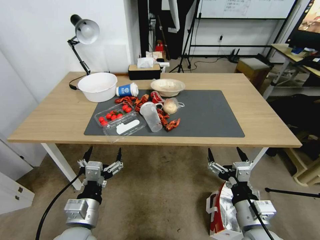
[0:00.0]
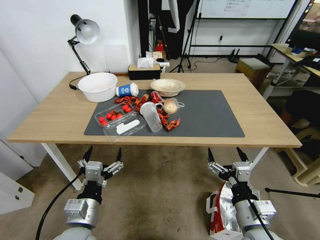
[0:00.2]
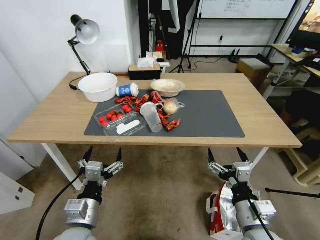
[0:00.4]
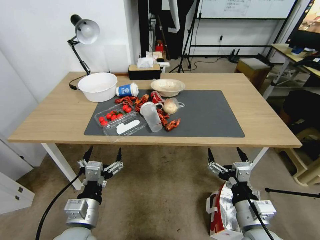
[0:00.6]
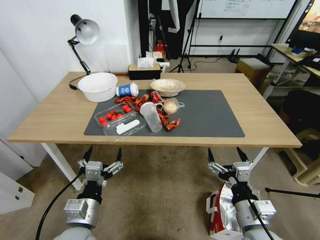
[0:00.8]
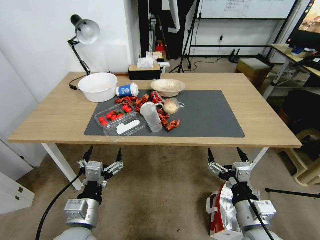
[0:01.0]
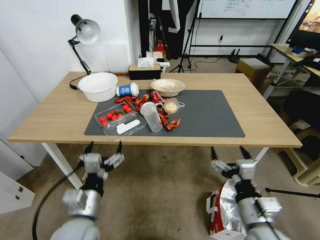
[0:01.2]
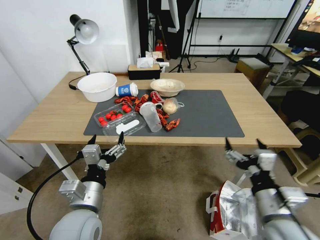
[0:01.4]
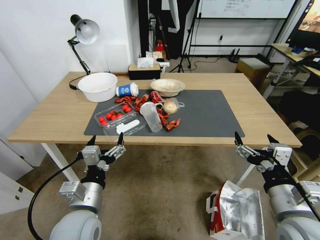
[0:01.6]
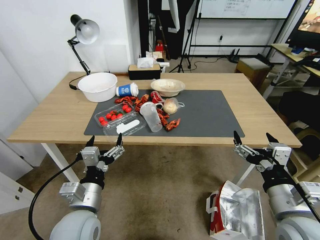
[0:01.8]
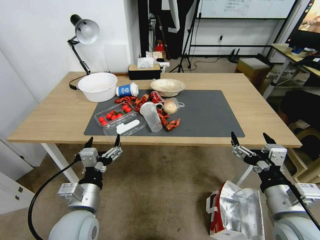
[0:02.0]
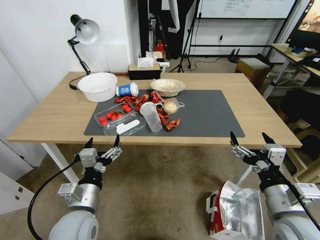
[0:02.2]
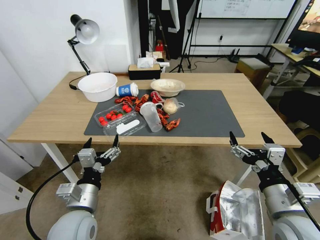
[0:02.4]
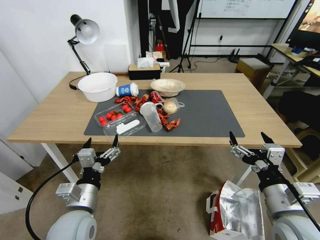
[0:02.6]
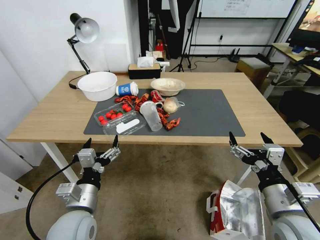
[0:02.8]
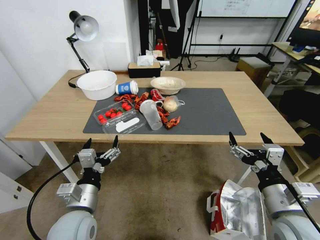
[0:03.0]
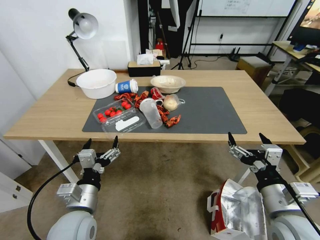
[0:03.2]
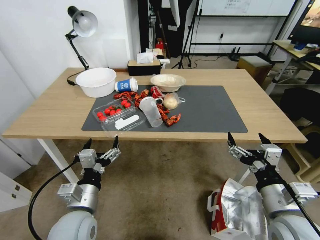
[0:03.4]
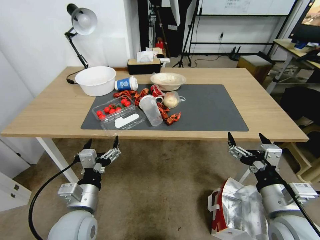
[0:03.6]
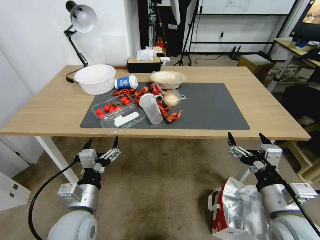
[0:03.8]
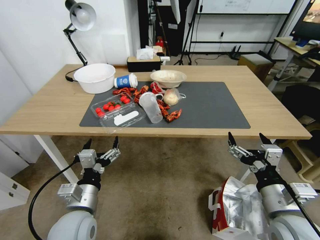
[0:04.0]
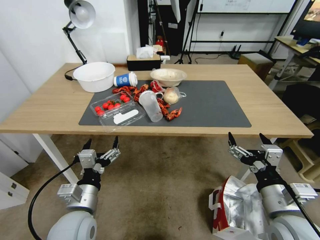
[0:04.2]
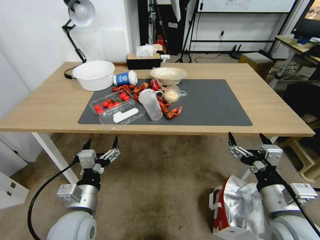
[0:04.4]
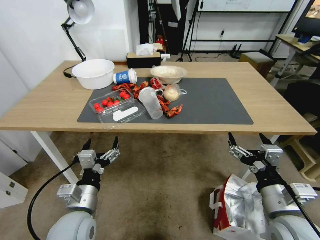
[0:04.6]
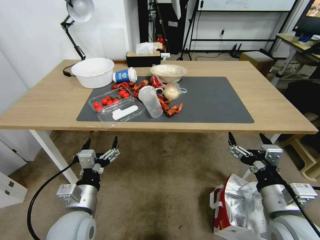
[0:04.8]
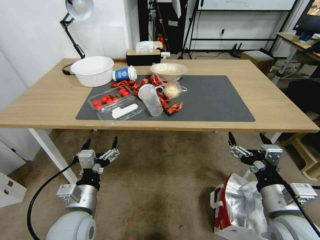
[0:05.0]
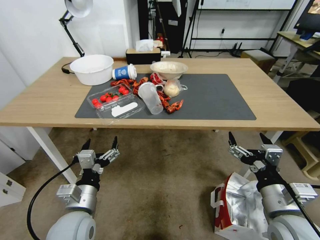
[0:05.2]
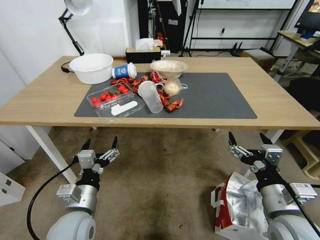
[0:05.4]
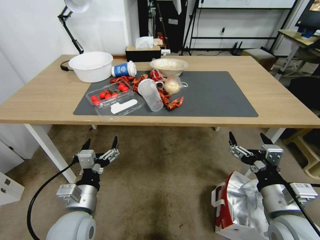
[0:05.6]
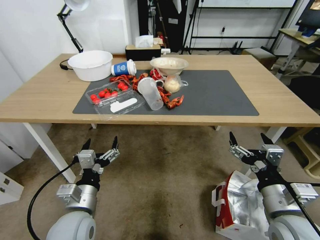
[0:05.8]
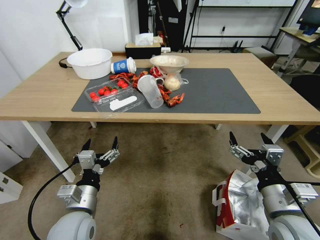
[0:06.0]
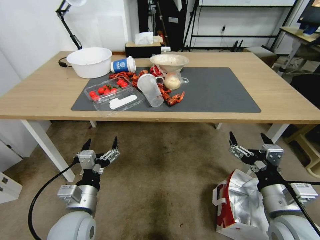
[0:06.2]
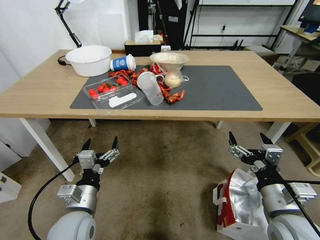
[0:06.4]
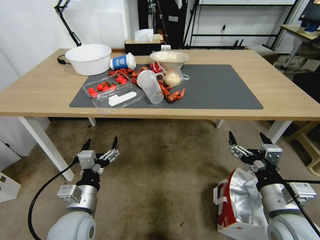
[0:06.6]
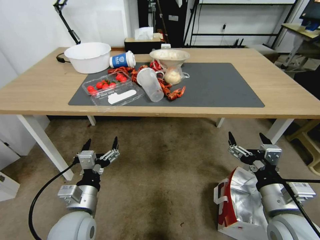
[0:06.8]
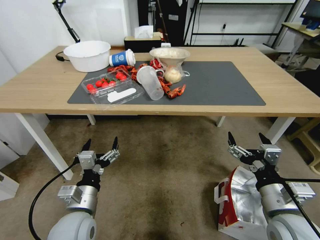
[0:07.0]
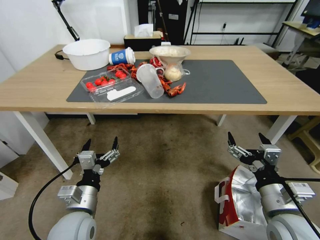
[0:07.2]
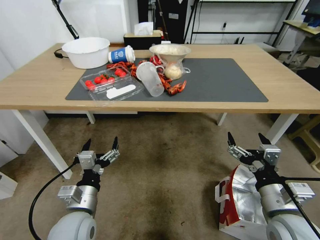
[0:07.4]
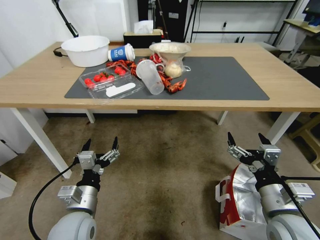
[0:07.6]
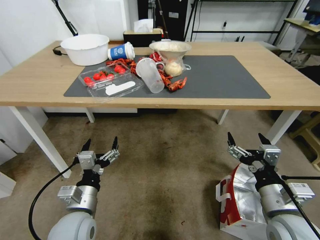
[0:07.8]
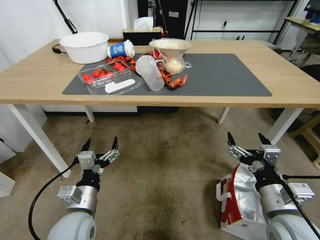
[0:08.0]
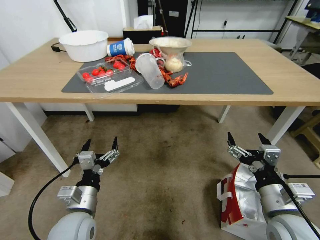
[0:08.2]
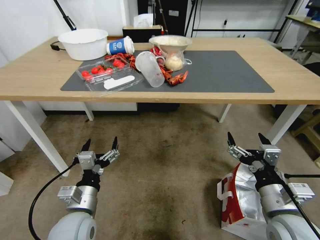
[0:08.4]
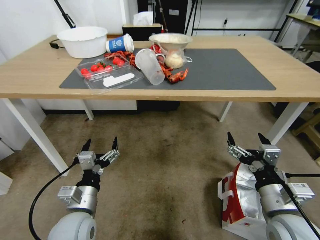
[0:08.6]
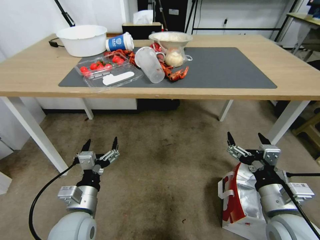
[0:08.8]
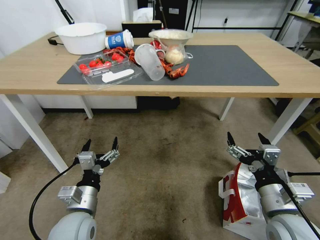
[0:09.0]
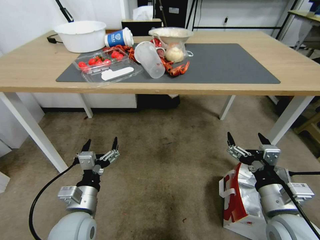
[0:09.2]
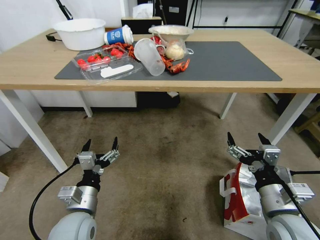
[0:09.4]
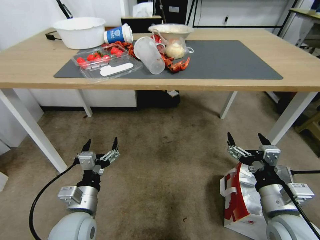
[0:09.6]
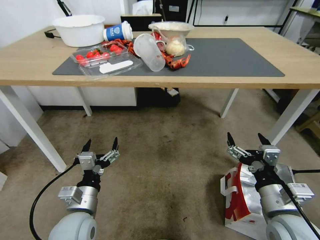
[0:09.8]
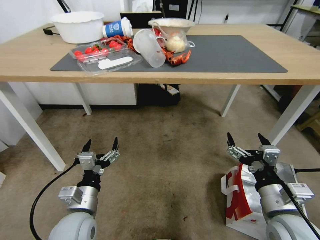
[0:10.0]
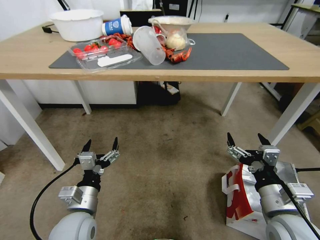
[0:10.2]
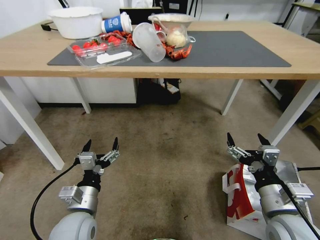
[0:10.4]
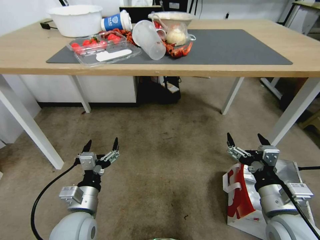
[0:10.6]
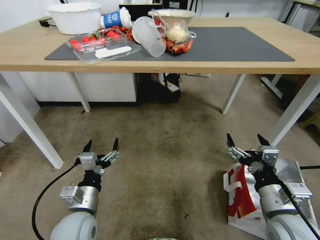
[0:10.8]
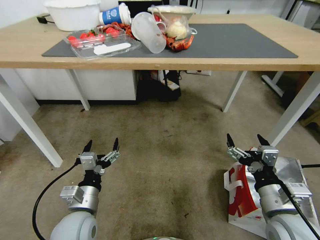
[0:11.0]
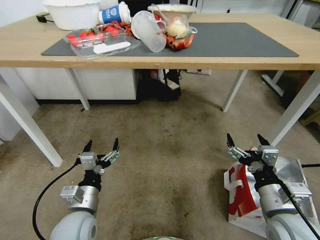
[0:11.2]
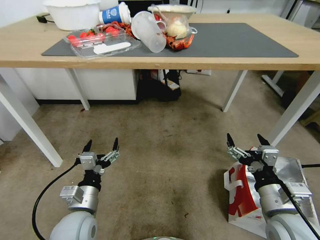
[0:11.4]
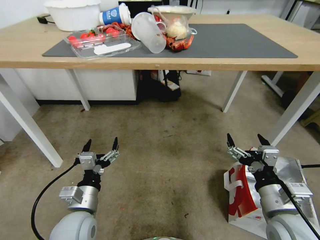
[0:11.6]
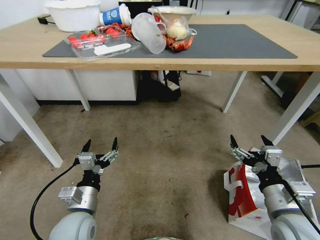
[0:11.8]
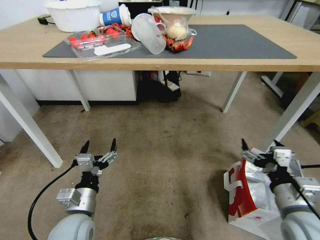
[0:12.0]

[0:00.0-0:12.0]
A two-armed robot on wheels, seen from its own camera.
Task of the whole recording: Pick up the food delivery bag from the floor and place it on the table.
0:01.6 to 0:03.0: The grippers stay close to where they were, moving slightly.

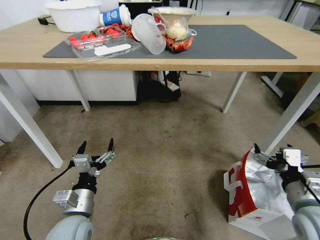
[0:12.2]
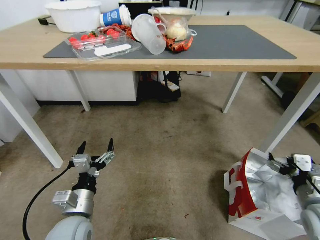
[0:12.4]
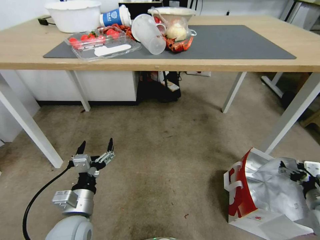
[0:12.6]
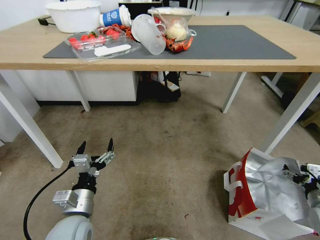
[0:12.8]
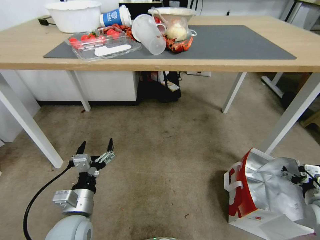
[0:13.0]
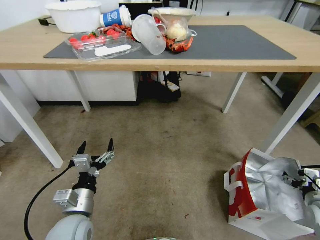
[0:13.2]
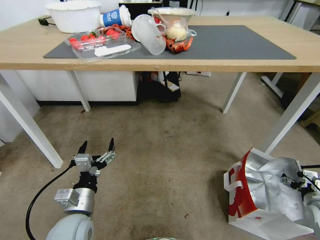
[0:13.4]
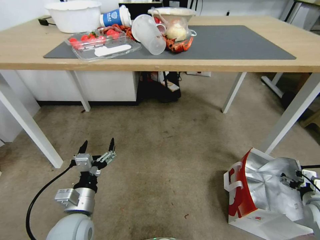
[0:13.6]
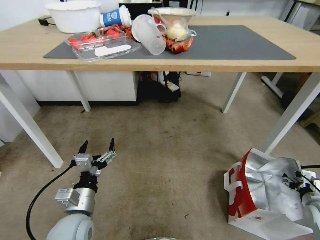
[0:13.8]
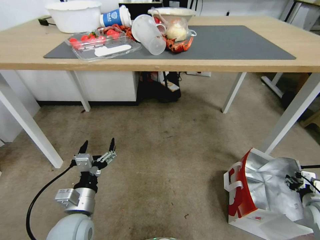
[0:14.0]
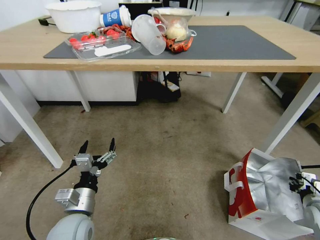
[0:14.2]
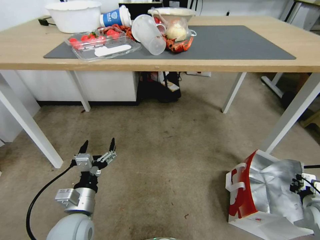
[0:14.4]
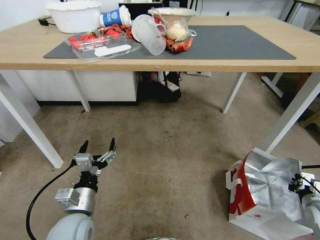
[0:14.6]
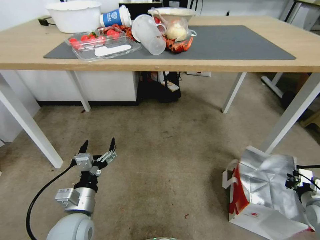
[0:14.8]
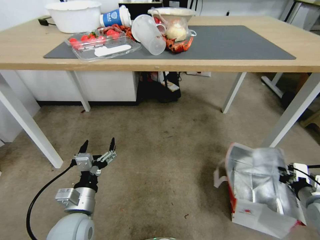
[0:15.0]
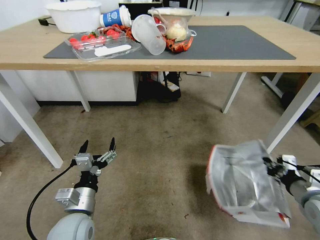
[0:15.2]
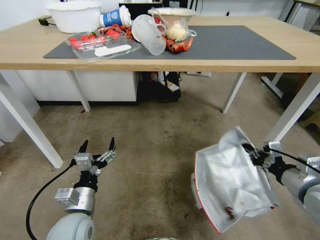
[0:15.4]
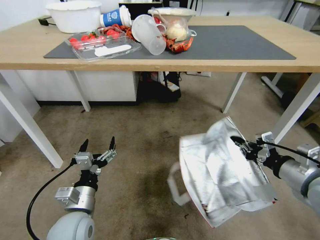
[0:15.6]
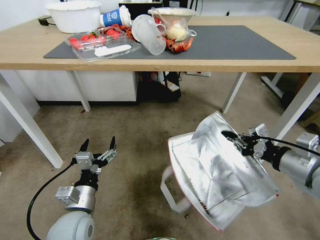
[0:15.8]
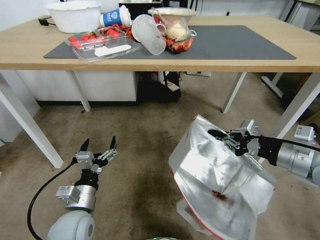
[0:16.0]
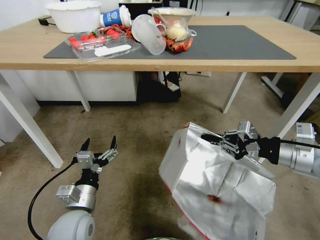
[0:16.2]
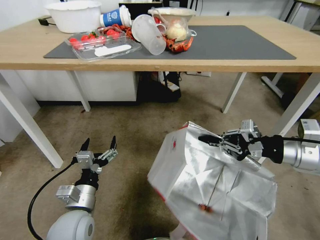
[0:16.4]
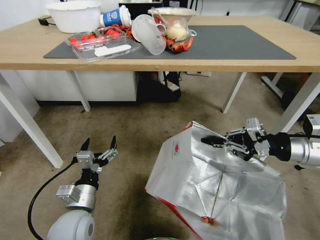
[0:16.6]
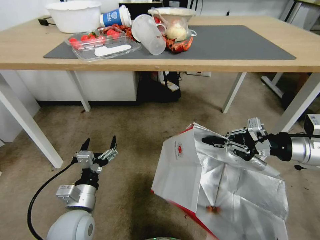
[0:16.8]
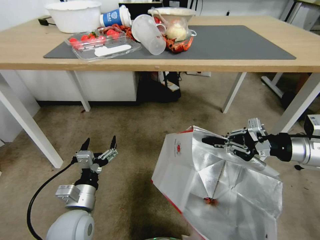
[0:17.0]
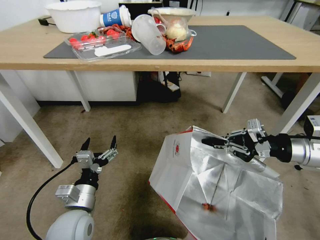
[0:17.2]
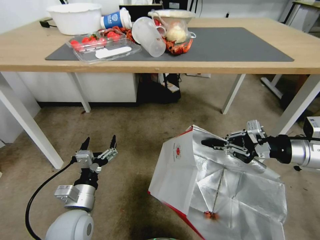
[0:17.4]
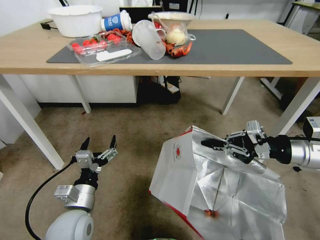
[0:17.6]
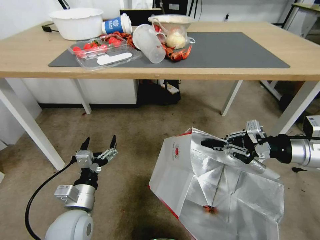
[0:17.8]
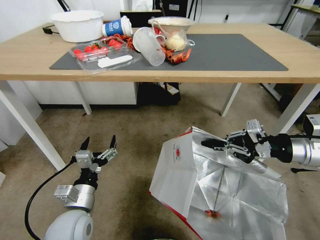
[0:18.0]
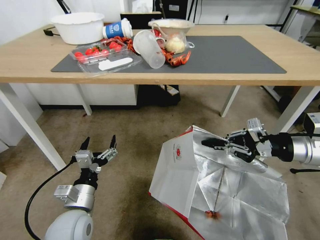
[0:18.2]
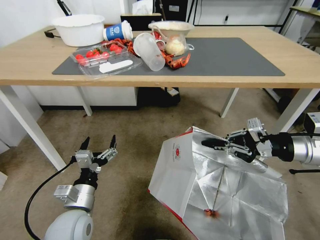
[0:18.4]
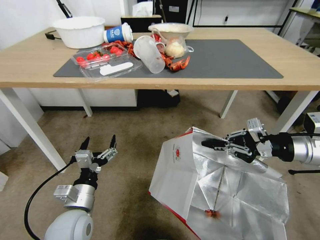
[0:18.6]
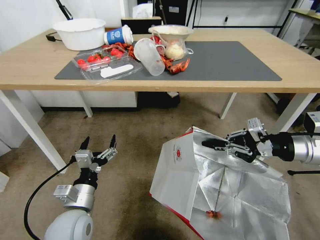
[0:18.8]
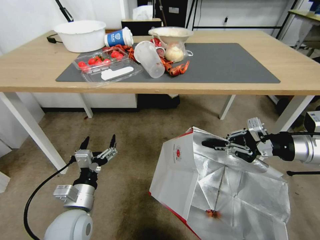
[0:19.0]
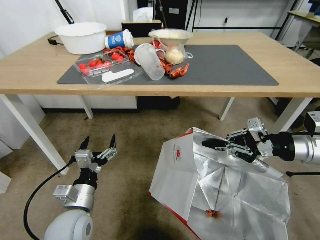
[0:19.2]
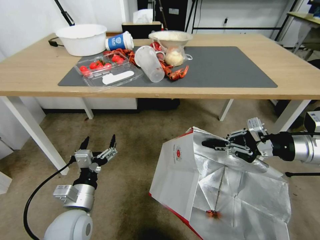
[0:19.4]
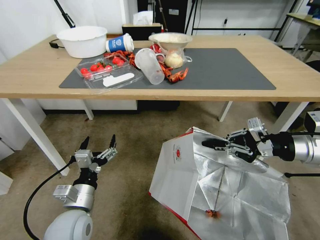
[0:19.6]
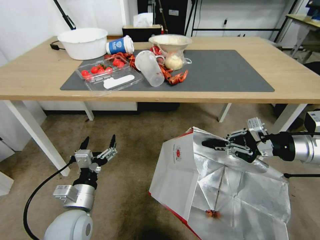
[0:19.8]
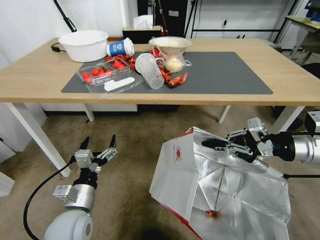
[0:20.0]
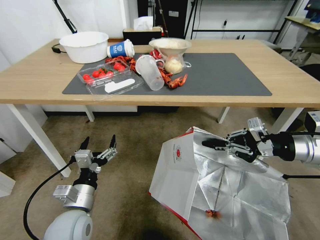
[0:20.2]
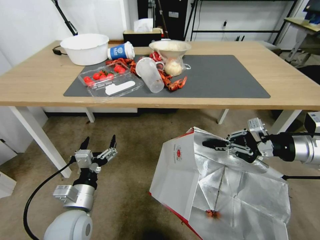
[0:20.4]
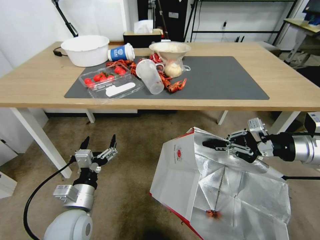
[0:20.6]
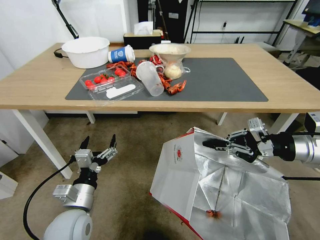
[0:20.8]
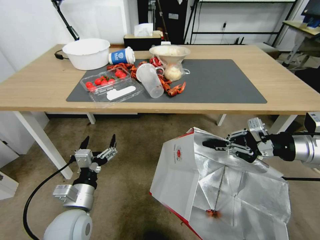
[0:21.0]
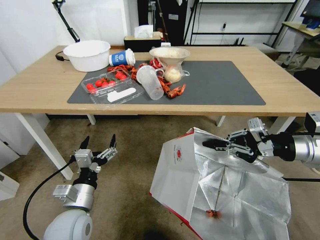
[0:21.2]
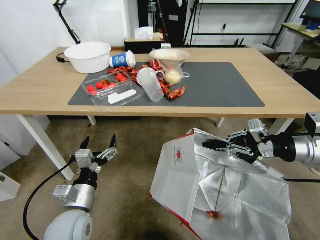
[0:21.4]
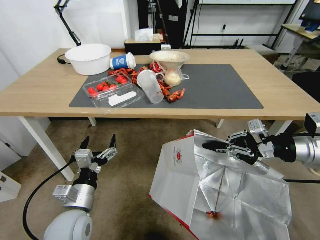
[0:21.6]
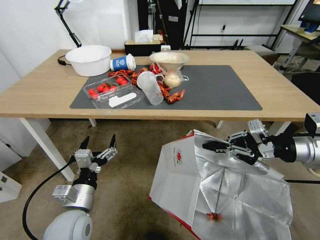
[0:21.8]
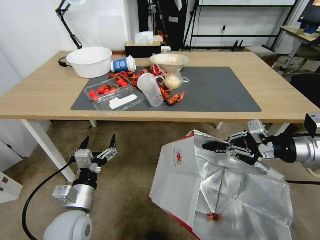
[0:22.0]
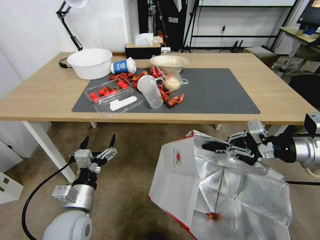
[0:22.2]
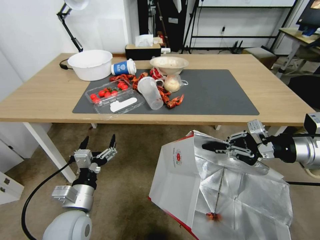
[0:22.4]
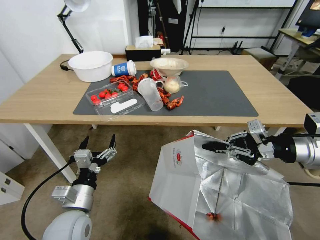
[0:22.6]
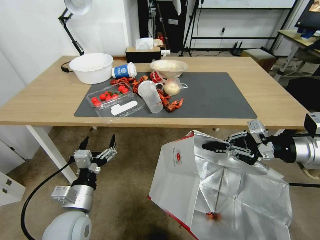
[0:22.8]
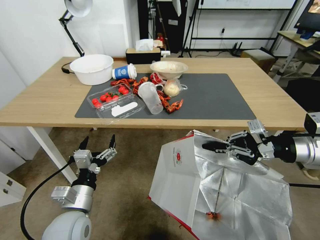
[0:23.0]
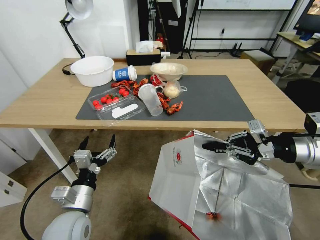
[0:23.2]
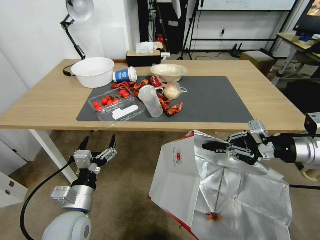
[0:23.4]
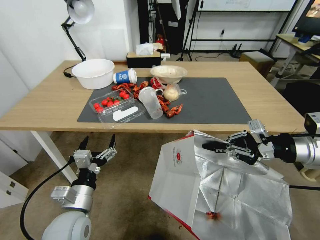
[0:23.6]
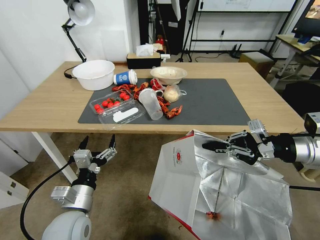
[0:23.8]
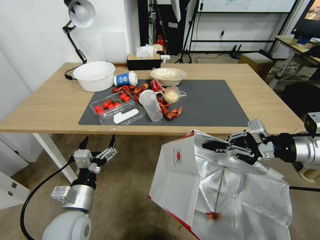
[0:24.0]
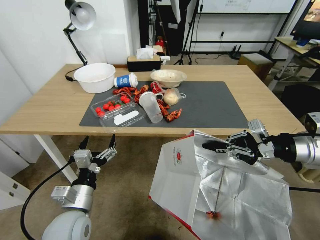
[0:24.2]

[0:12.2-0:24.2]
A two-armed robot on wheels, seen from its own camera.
Task of the whole recording: Pick up the food delivery bag from the floor and place it on the table.
0:12.2 to 0:13.8: The right gripper is displaced to the right and downward by some 20 cm.
0:13.8 to 0:15.2: The right gripper moves upward and to the left, approximately 10 cm, and closes its fingers.
0:15.2 to 0:16.6: The right gripper moves upward and forward, about 20 cm.
